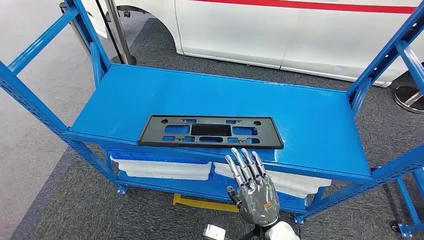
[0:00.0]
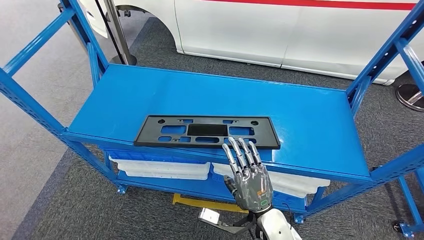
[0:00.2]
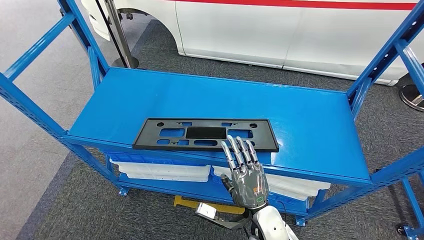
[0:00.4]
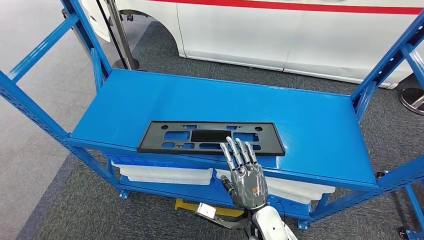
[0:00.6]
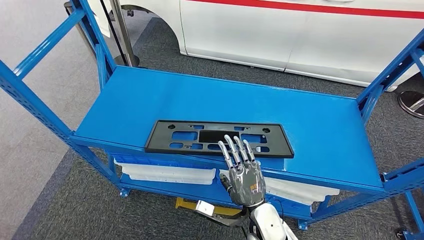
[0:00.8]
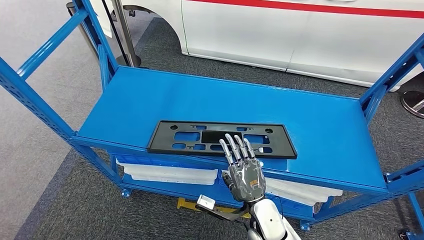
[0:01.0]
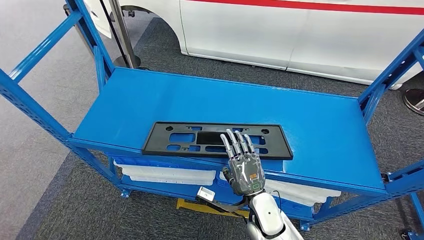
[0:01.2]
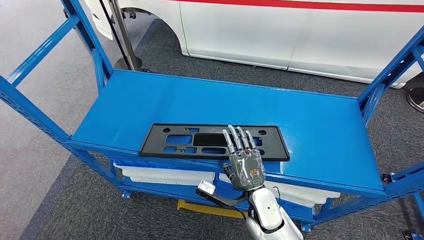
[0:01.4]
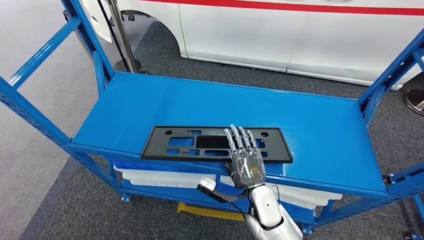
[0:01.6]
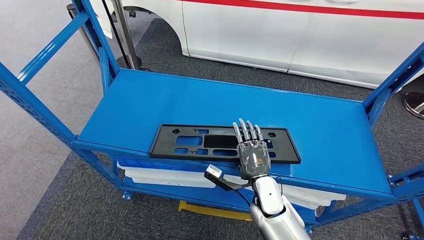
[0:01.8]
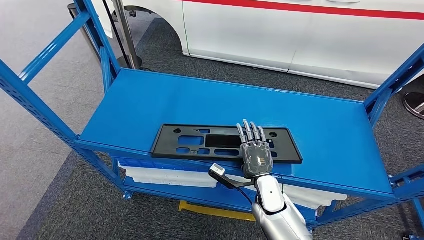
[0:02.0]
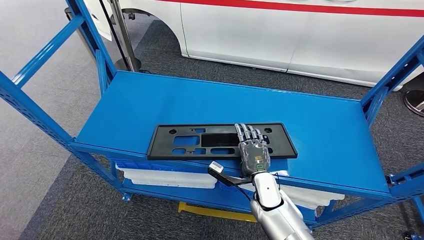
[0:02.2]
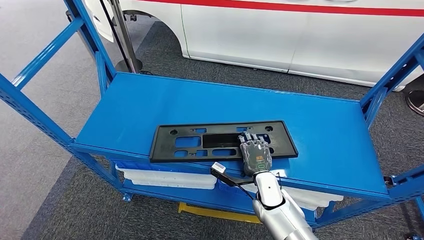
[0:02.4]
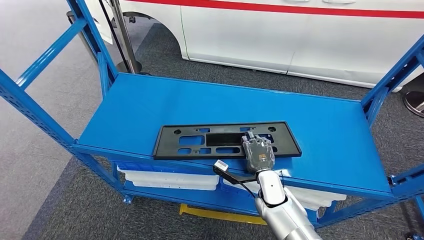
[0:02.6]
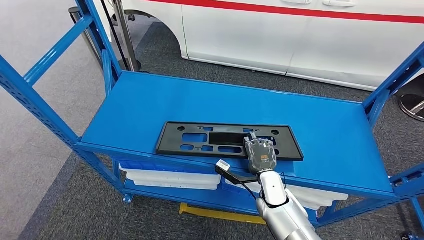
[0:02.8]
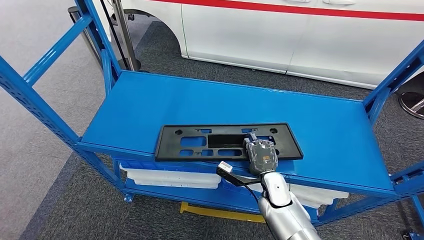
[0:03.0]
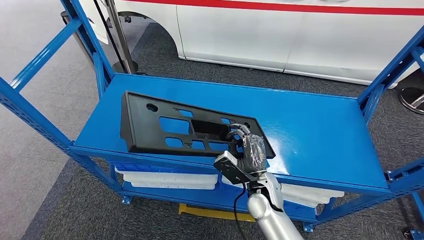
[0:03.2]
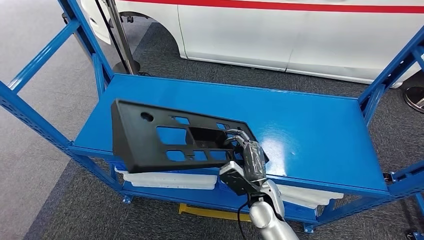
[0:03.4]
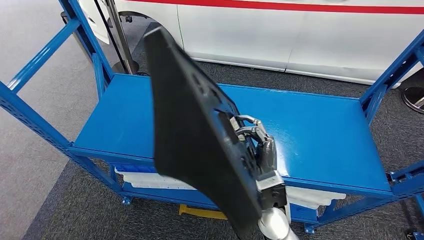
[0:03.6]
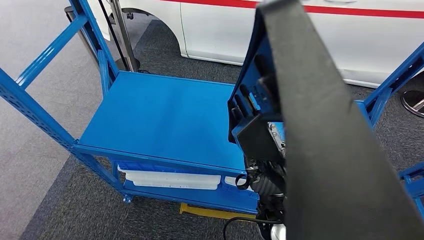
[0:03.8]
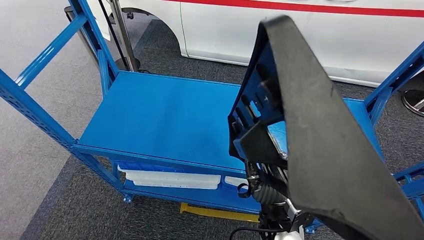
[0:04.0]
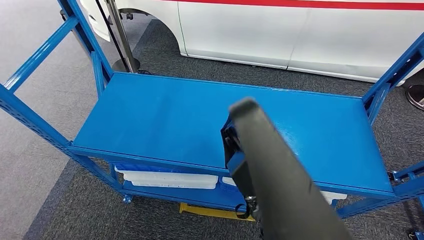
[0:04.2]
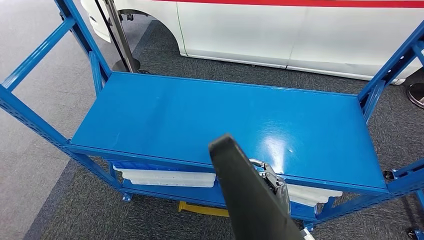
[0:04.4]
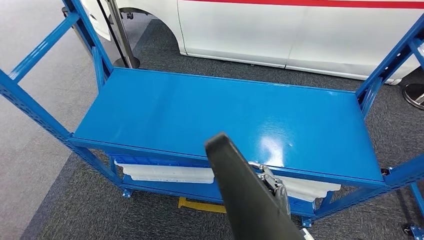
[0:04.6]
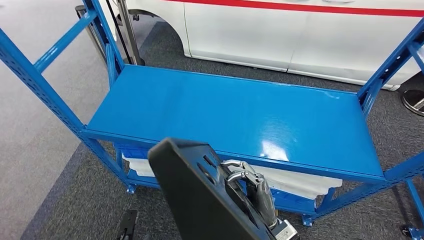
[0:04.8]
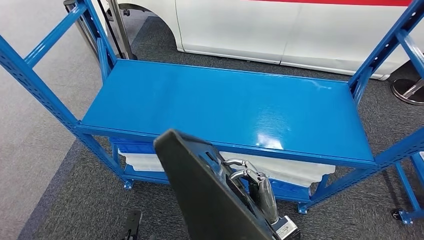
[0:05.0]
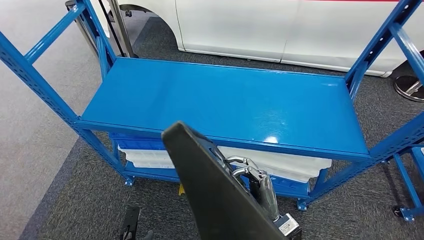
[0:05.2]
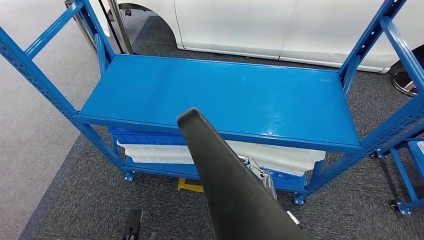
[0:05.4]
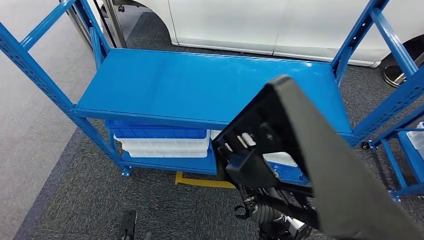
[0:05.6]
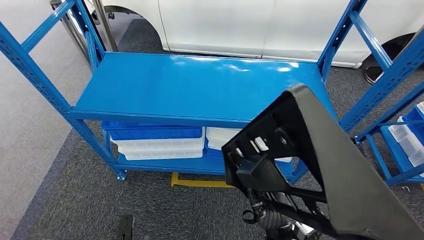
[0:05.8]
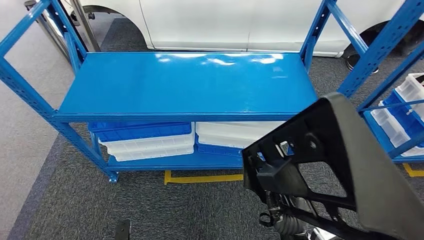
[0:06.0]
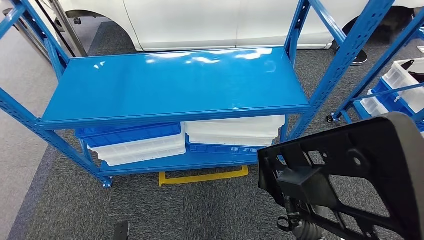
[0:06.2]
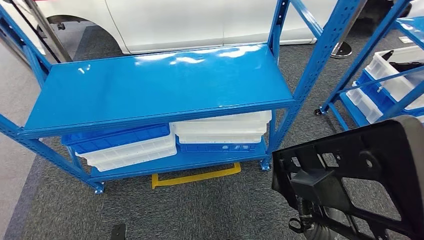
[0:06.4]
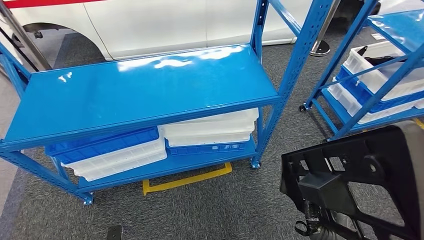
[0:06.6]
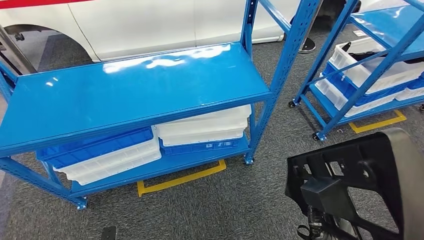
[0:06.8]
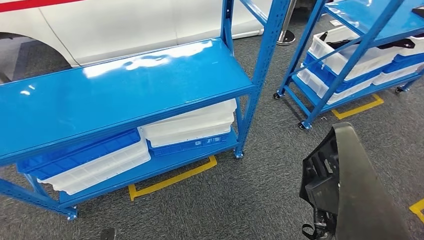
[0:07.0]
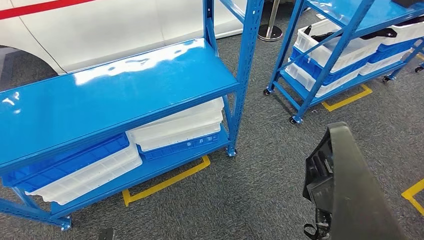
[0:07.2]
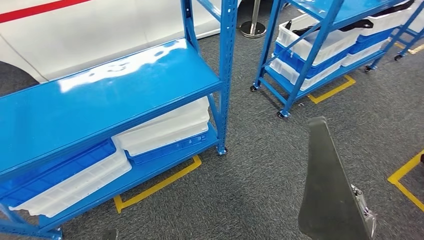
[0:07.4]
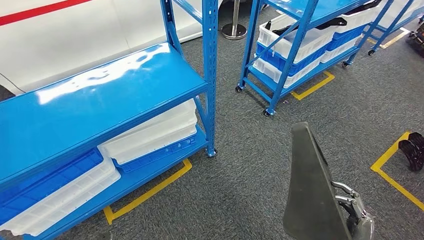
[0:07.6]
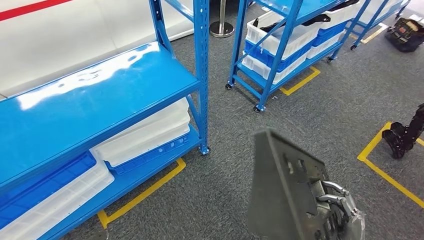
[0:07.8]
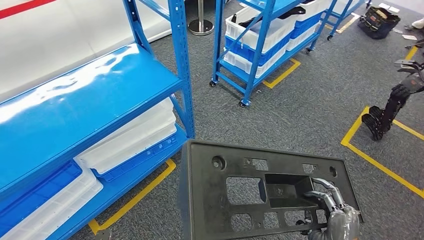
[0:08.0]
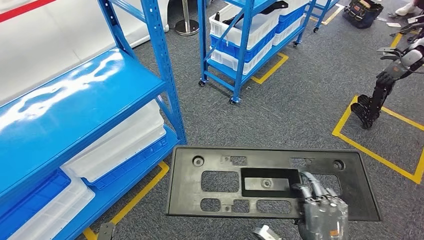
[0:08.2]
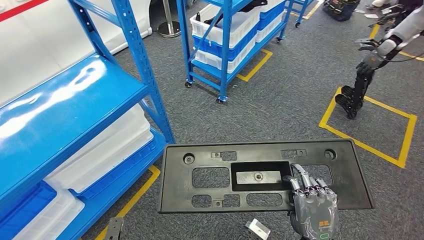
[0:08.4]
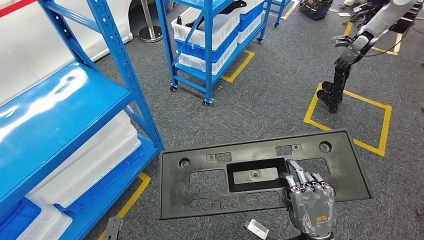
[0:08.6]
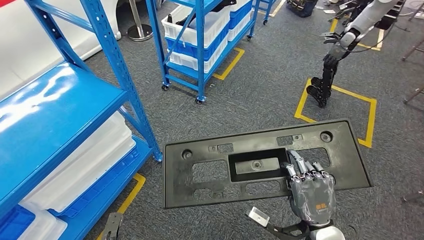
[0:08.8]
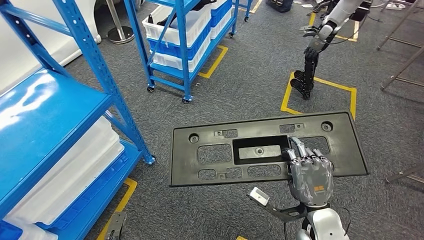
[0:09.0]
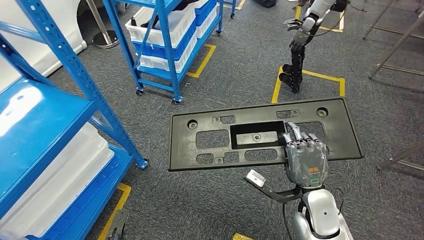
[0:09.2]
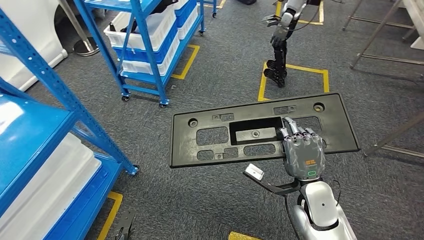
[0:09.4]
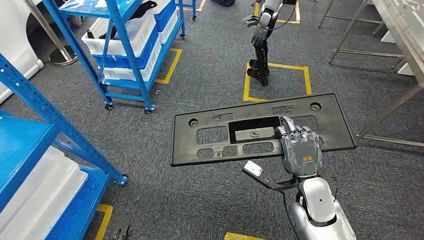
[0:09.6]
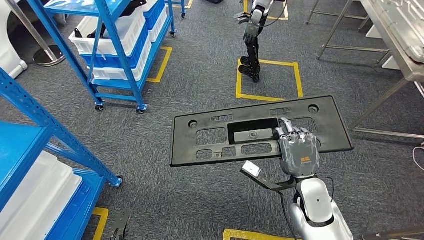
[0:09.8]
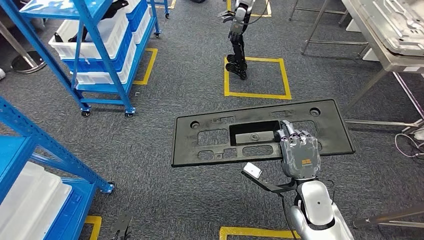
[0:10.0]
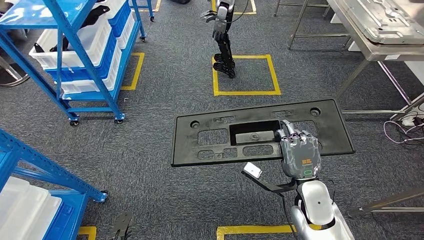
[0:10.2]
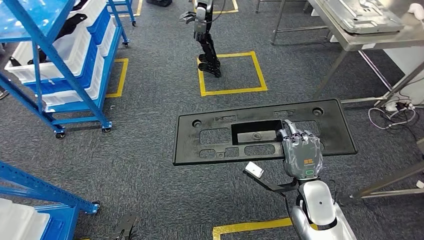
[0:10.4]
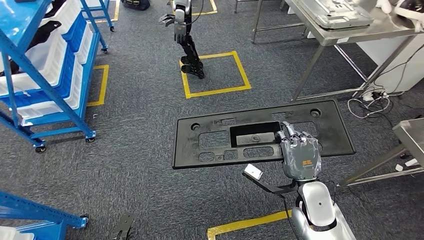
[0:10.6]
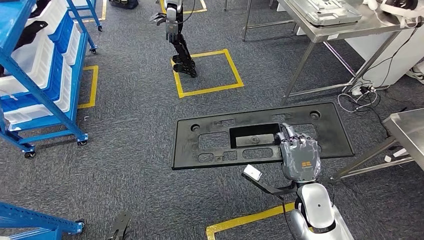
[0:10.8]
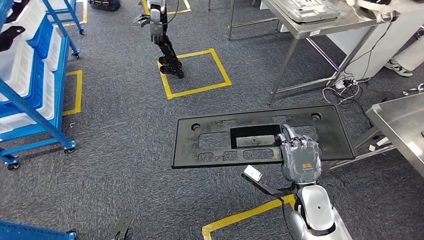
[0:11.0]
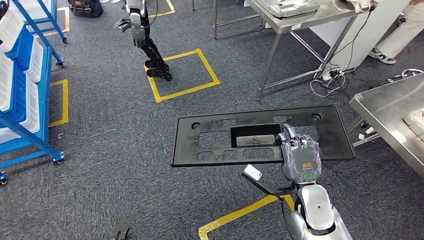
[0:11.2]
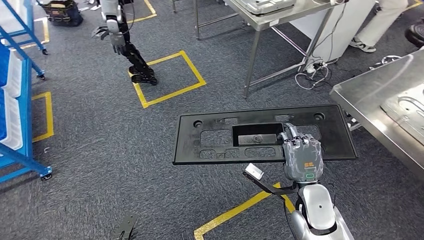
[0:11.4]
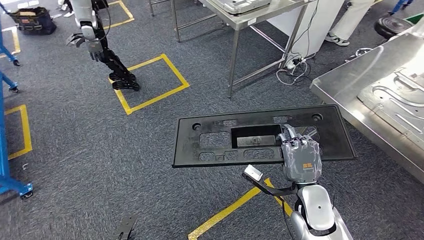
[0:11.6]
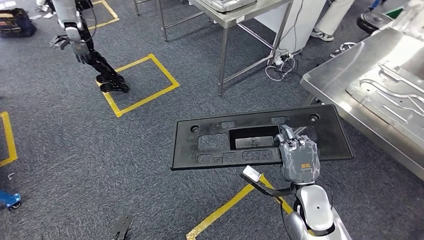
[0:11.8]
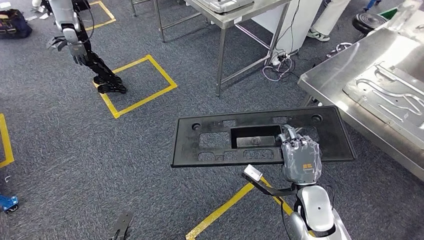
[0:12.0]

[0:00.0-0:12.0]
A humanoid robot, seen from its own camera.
Step, 0:00.0 to 0:05.2: Pick up the large parts from the shelf.

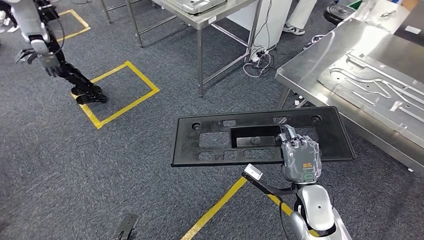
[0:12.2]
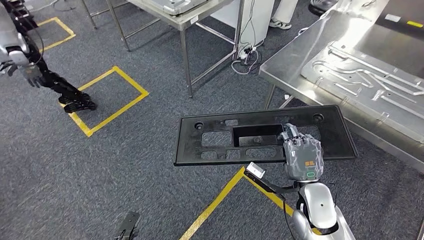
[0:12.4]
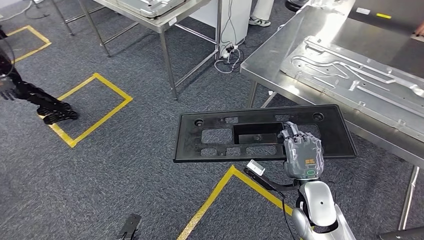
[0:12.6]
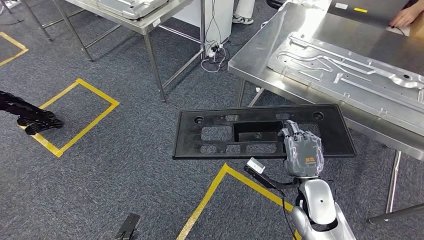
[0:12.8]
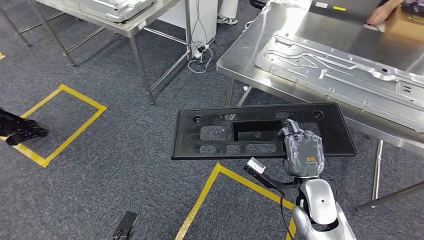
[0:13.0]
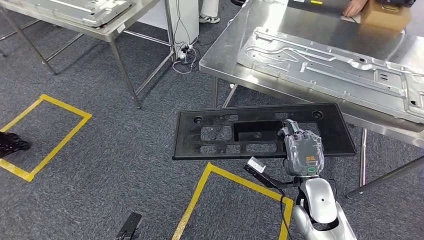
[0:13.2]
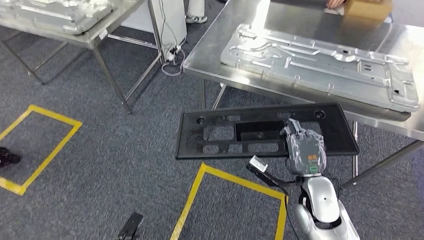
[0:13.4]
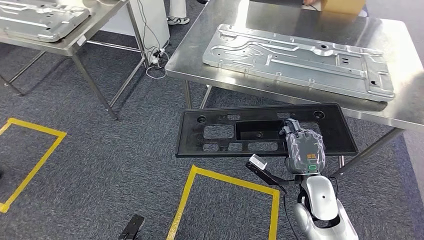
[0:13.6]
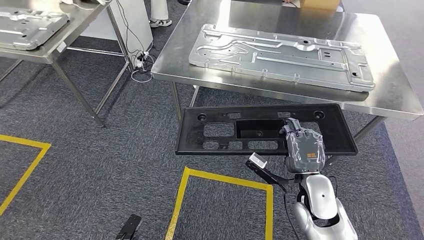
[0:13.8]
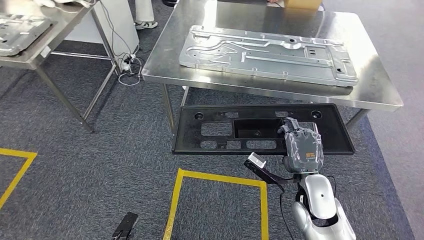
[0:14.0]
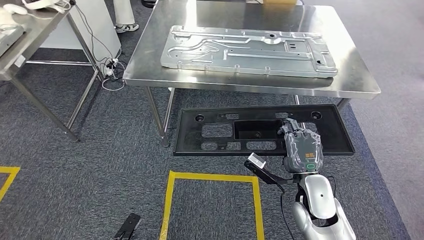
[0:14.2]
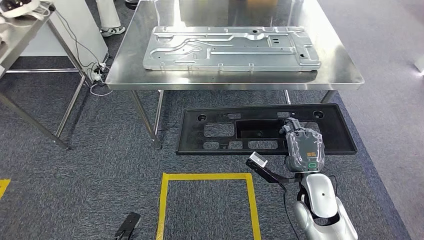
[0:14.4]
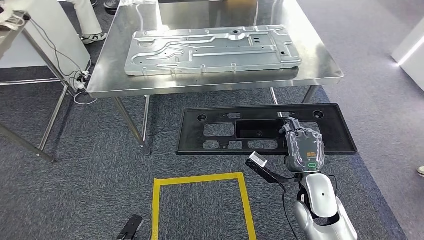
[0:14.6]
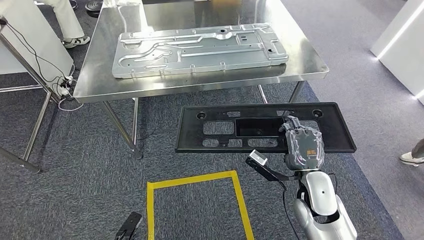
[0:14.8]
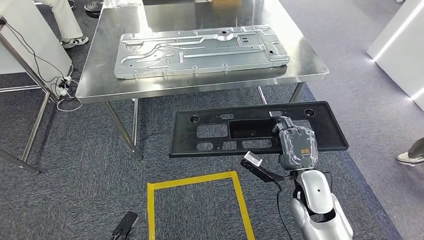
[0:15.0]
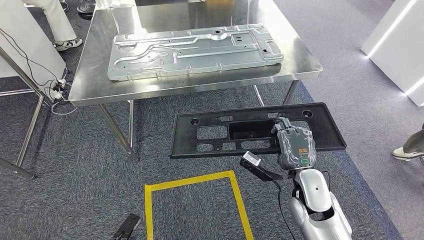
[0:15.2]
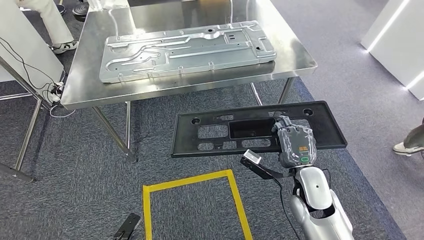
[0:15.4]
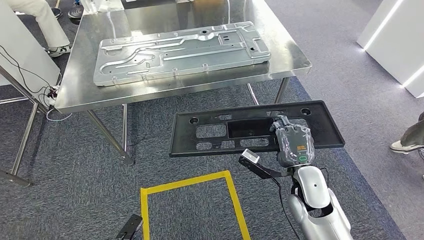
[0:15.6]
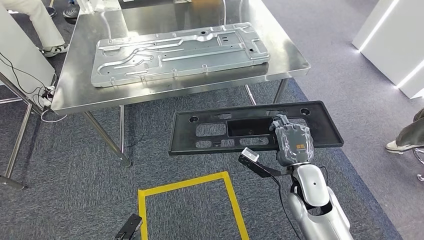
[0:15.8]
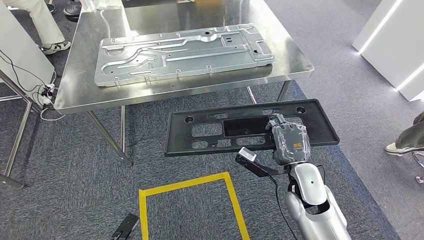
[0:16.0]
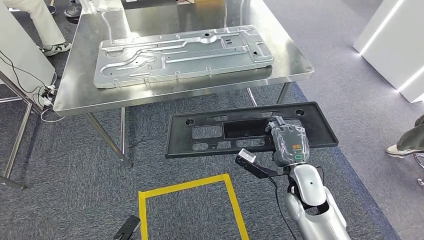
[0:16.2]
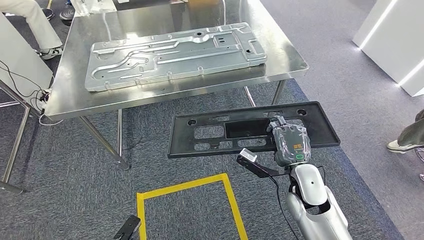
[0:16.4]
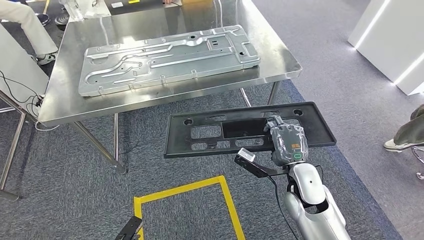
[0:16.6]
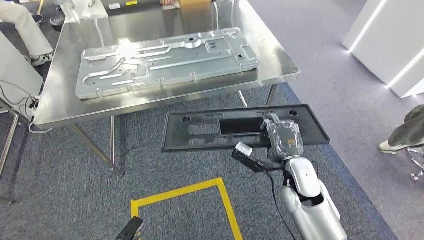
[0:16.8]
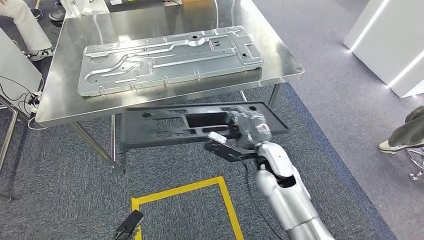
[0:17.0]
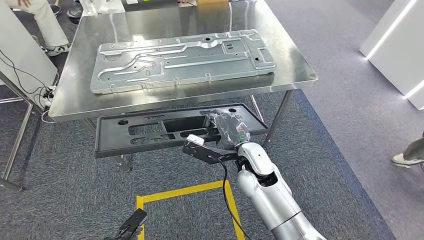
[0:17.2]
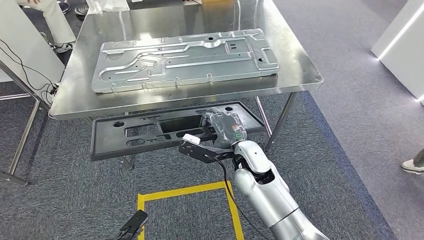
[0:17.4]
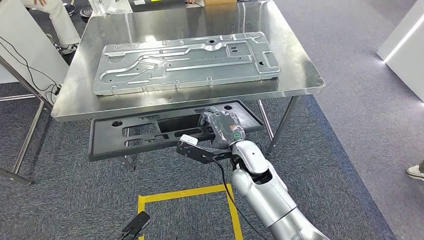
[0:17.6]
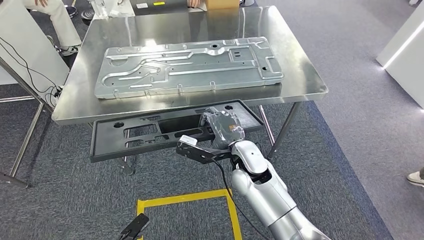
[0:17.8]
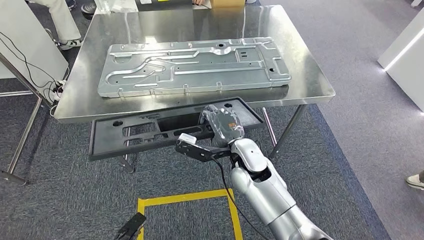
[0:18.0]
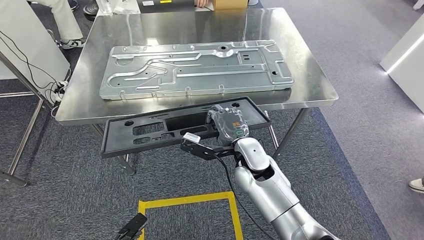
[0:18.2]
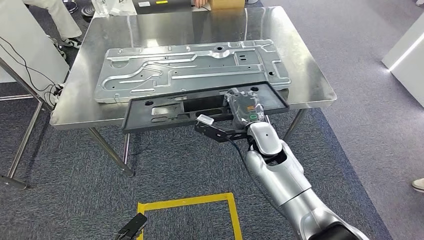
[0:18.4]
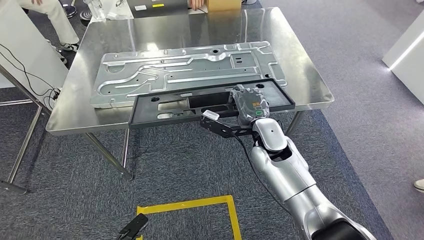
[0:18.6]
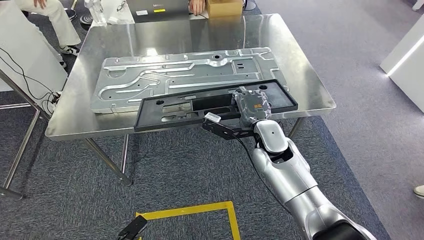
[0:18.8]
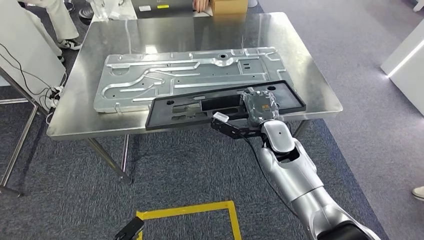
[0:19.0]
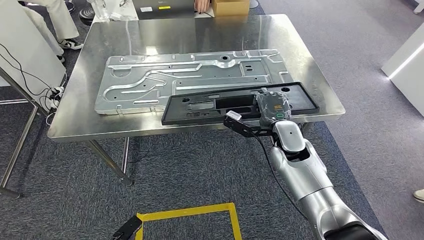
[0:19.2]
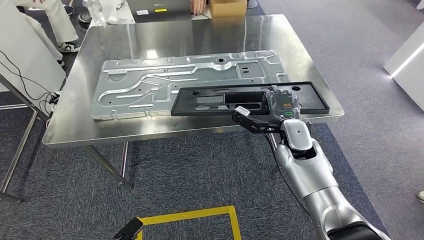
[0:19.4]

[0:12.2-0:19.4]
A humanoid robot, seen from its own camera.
Step, 0:12.2 to 0:19.2: Move the large parts to the workbench.
